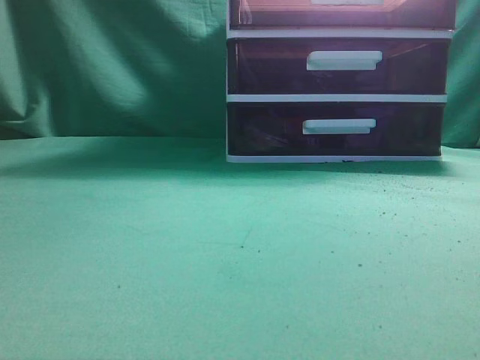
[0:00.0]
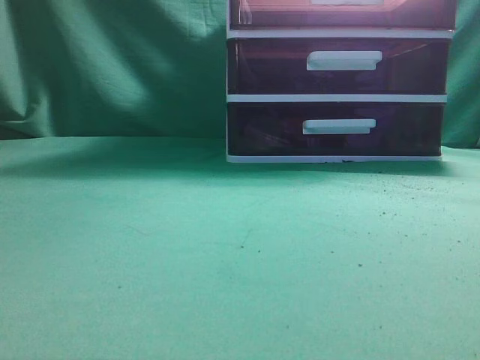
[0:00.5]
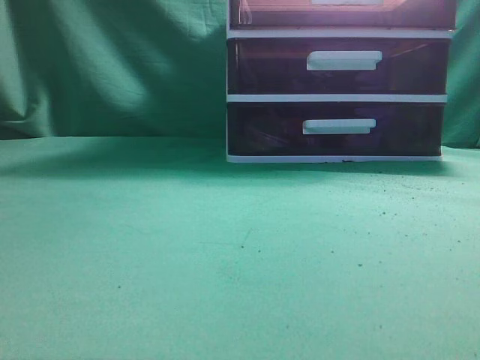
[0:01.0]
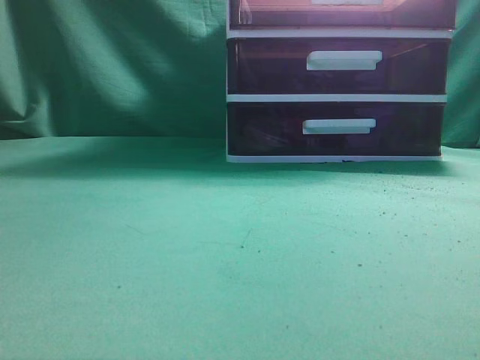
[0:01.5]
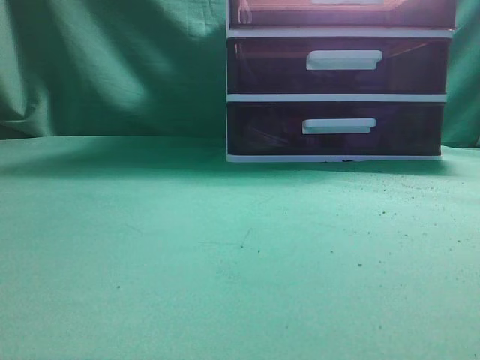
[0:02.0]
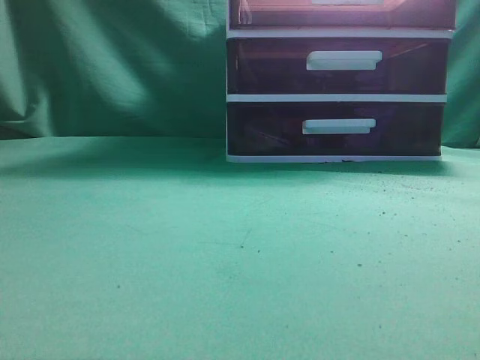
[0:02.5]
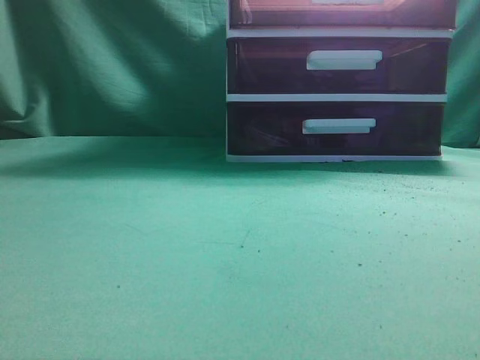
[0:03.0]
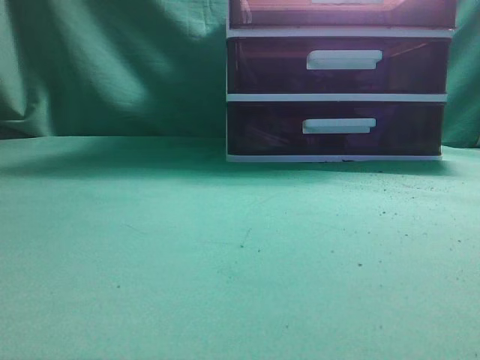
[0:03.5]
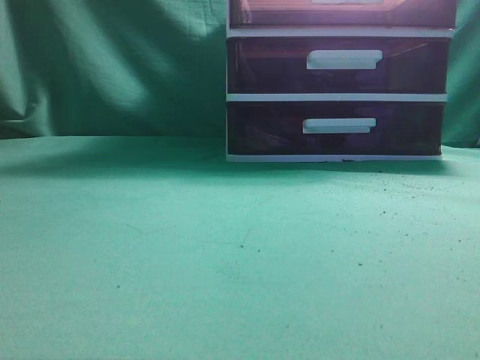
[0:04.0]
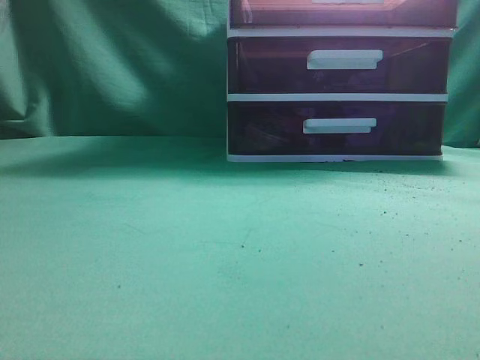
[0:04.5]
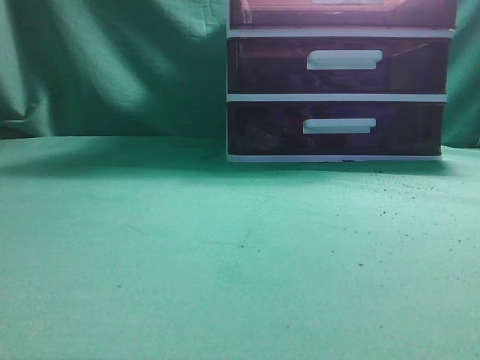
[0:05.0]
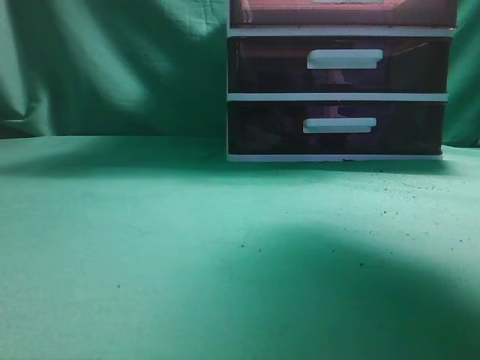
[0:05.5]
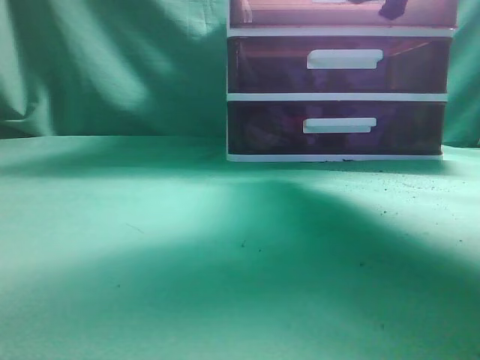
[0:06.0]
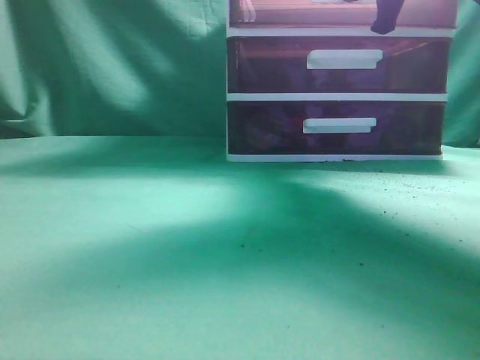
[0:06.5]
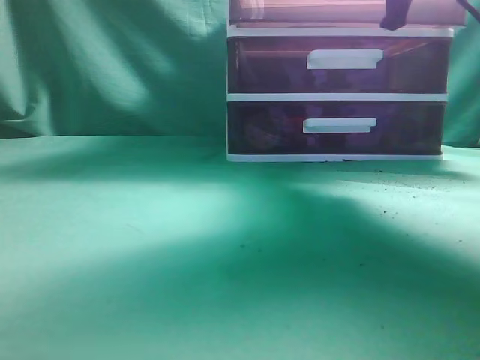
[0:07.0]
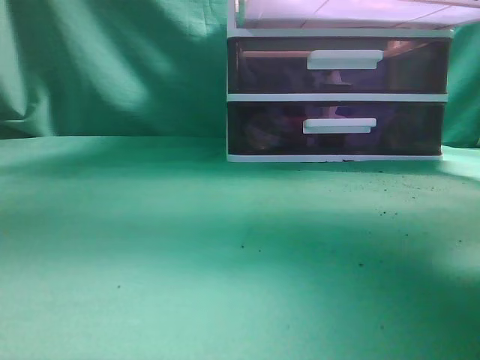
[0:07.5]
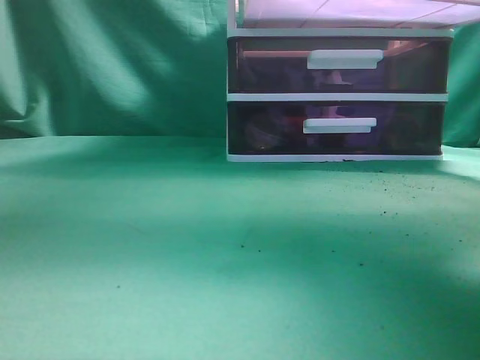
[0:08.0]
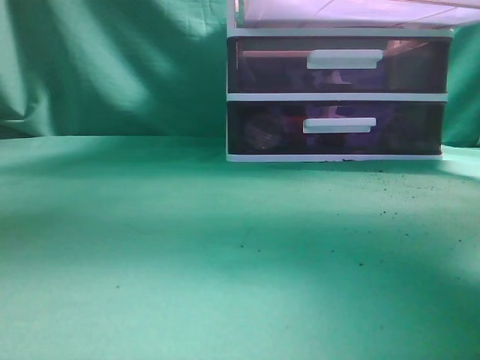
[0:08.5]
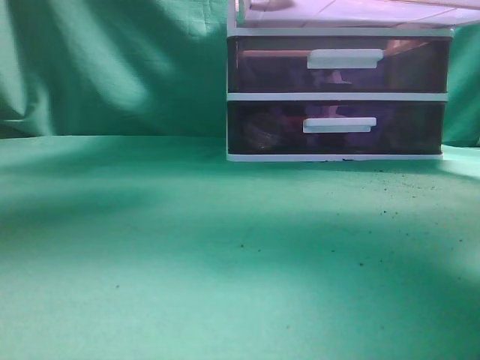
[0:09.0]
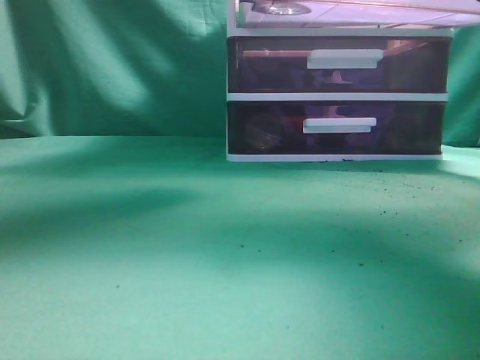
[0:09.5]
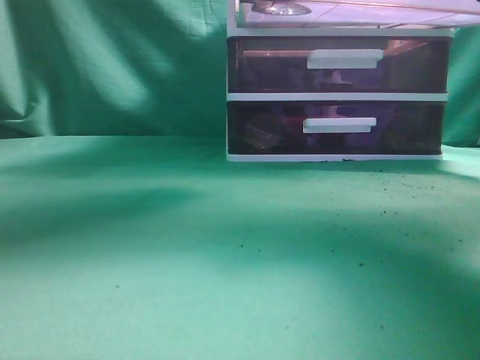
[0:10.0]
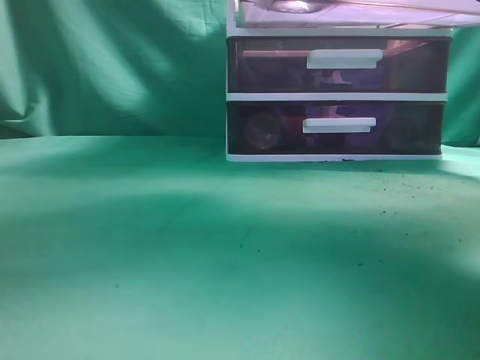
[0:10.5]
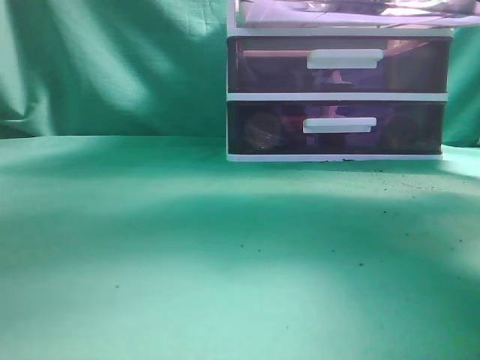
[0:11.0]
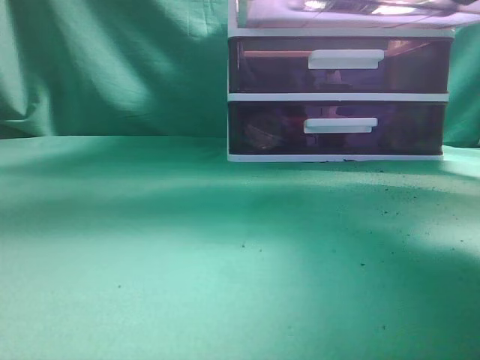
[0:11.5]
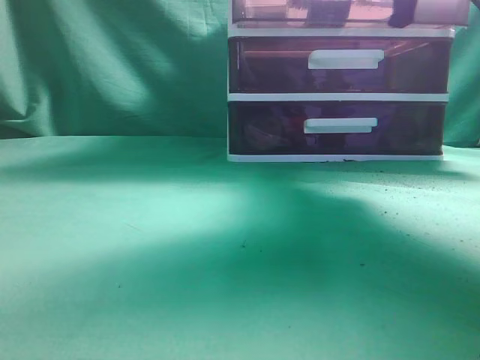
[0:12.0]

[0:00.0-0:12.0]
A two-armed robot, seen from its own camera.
Task of the whole recording: place the water bottle into the drawer.
Step, 0:00.0 to 0:08.5: Open the drawer.
Step, 0:09.0 to 0:11.0: Place the water bottle inside the drawer.
0:04.0 to 0:06.0: The left gripper is displaced upward, backward and to the right by approximately 20 cm. Meanwhile the right gripper travels forward by some 35 cm, and opens its fingers.
0:06.0 to 0:08.0: The right gripper is displaced backward by about 10 cm, and closes its fingers. The left gripper is displaced upward by about 5 cm.
0:08.0 to 0:10.0: The left gripper is displaced forward and to the right by some 25 cm, and opens its fingers.
0:10.0 to 0:12.0: The right gripper travels forward by approximately 10 cm, while the left gripper goes approximately 25 cm backward and to the left, and closes.

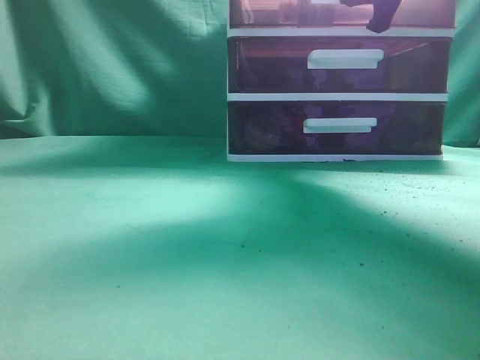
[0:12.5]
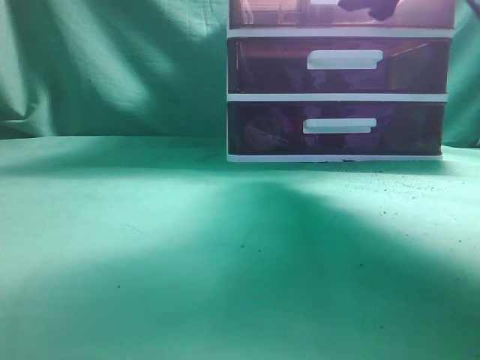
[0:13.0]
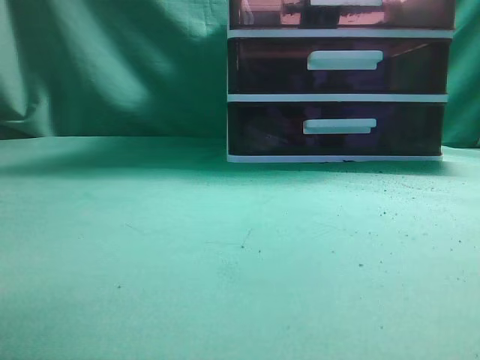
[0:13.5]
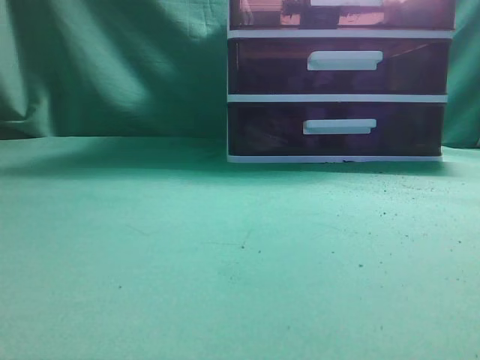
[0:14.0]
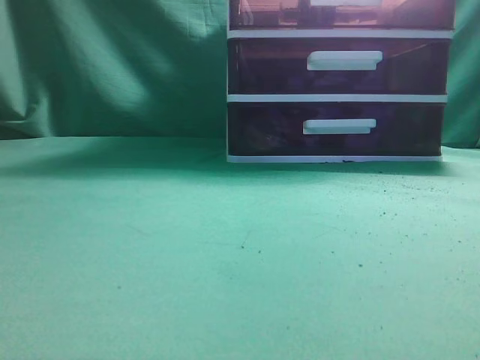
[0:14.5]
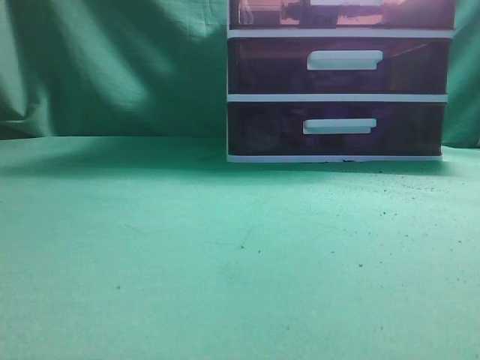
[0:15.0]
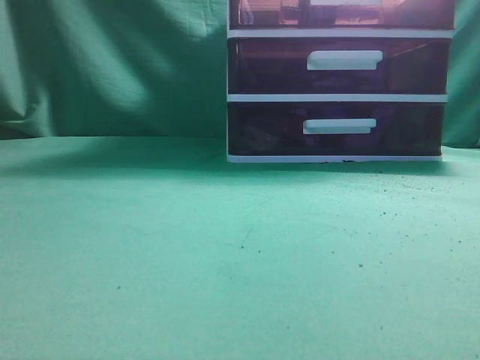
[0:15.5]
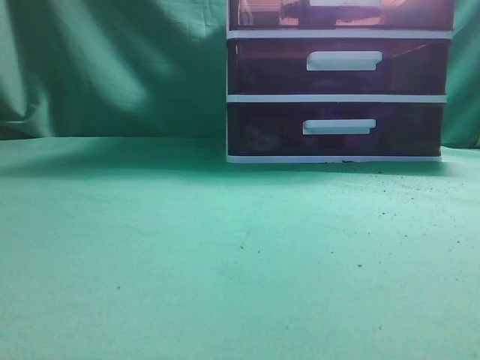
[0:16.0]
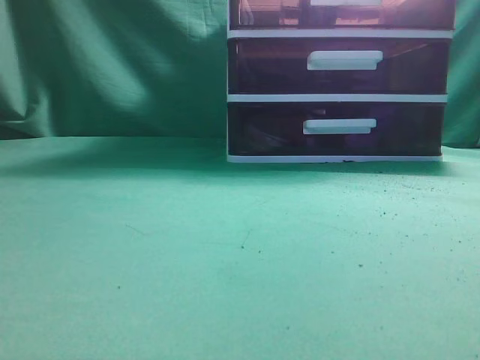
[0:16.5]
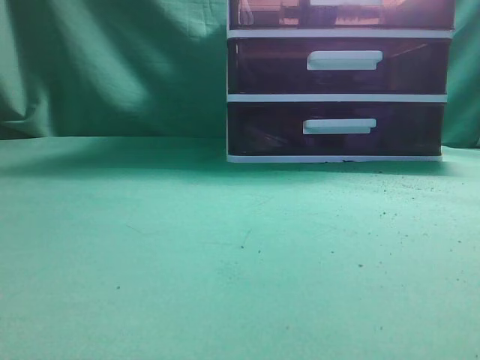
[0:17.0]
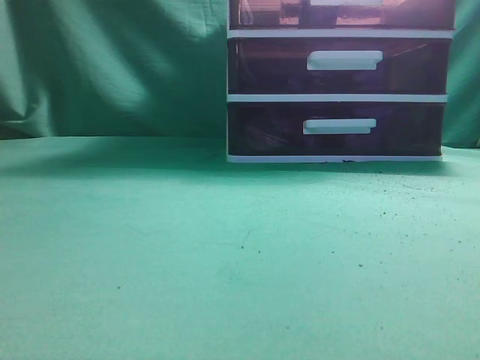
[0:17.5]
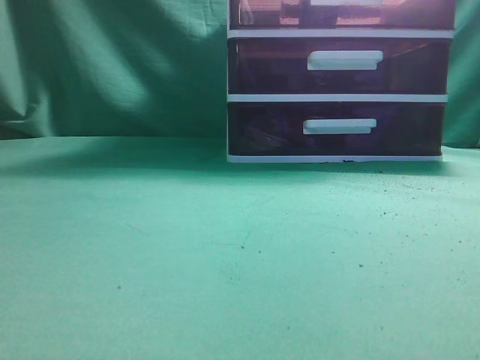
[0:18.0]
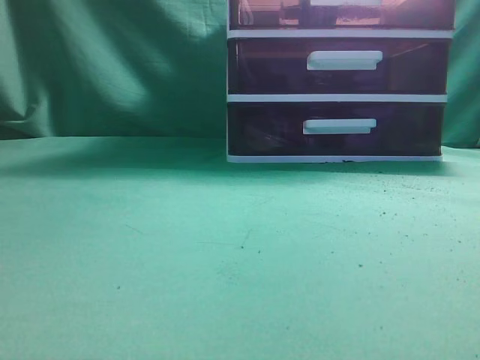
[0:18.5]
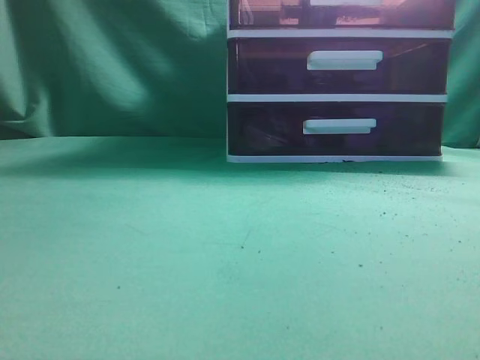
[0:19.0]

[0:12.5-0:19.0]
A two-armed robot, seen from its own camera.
Task of the whole recording: place the water bottle into the drawer.
0:12.5 to 0:14.5: The left gripper moves backward, downward and to the left, roughly 20 cm, while the right gripper goes about 35 cm backward, and closes up.
